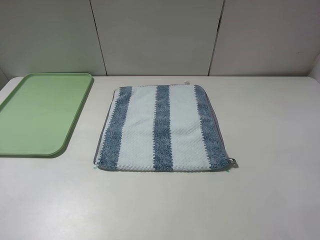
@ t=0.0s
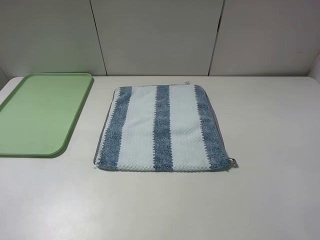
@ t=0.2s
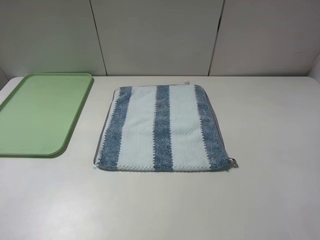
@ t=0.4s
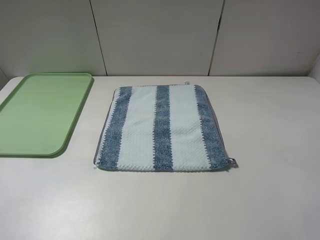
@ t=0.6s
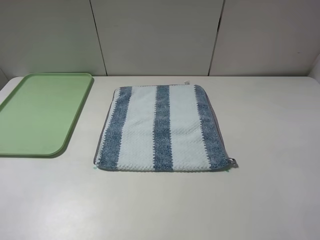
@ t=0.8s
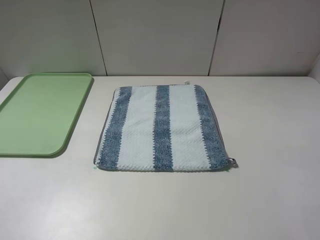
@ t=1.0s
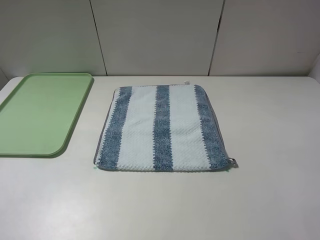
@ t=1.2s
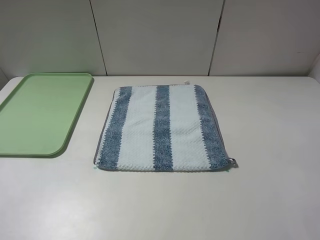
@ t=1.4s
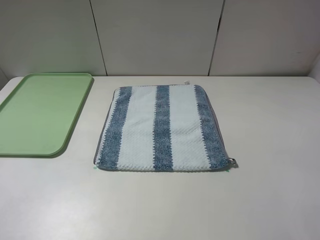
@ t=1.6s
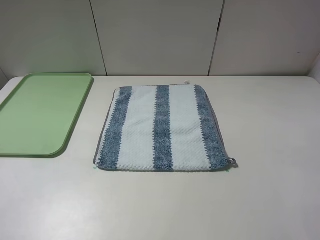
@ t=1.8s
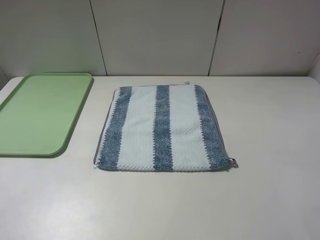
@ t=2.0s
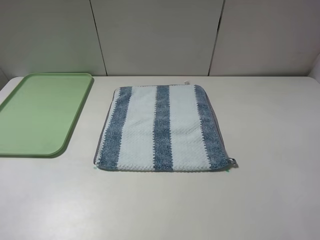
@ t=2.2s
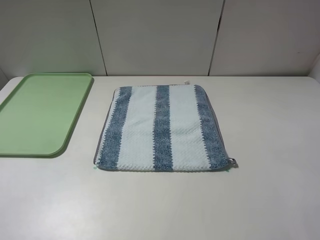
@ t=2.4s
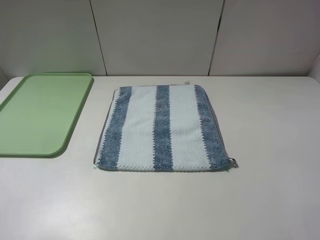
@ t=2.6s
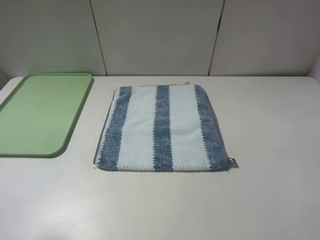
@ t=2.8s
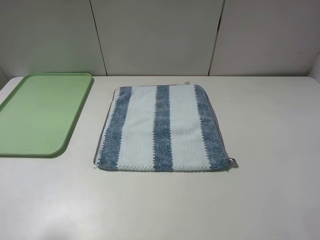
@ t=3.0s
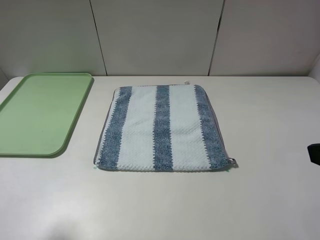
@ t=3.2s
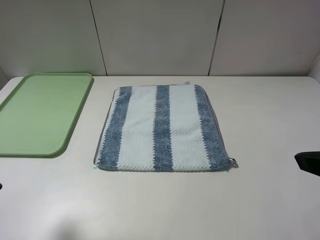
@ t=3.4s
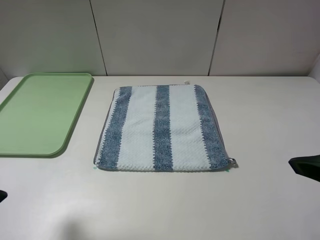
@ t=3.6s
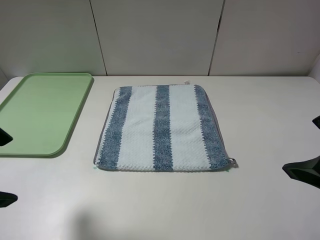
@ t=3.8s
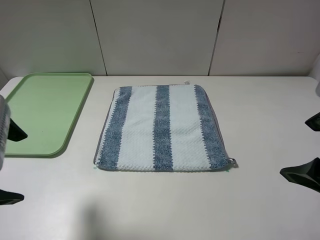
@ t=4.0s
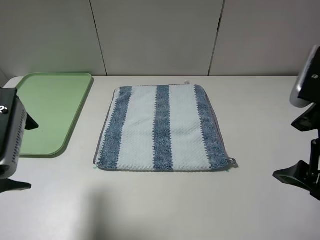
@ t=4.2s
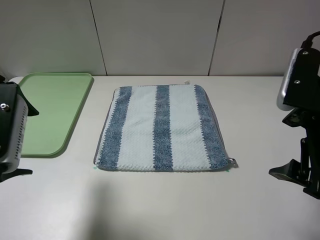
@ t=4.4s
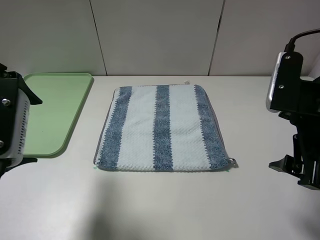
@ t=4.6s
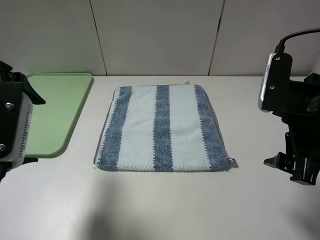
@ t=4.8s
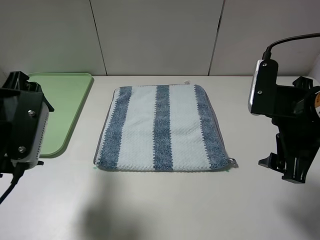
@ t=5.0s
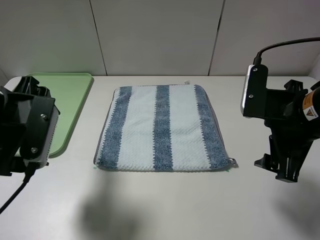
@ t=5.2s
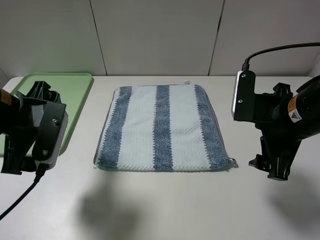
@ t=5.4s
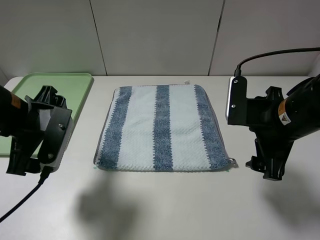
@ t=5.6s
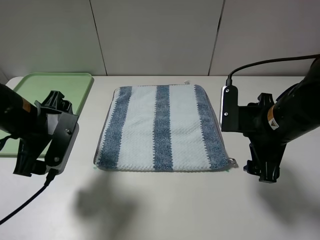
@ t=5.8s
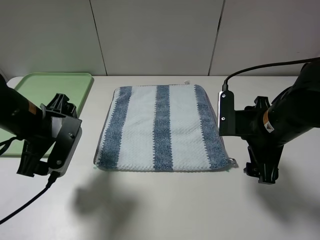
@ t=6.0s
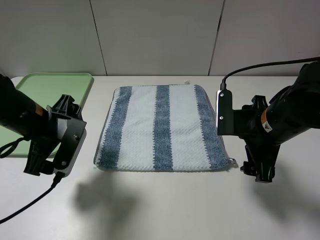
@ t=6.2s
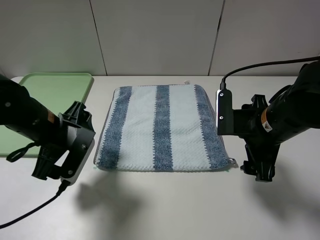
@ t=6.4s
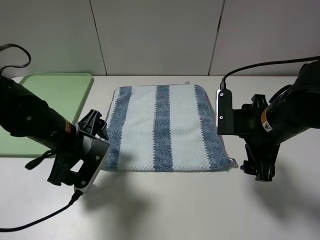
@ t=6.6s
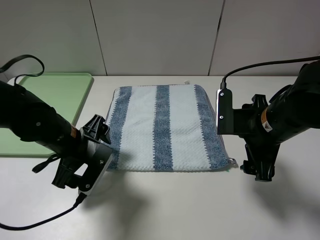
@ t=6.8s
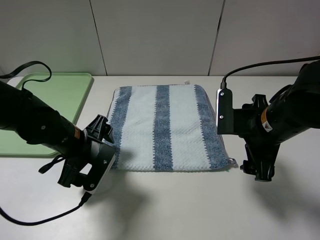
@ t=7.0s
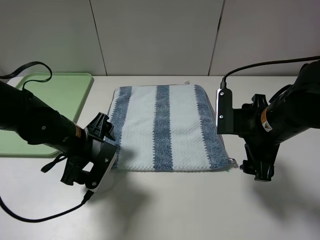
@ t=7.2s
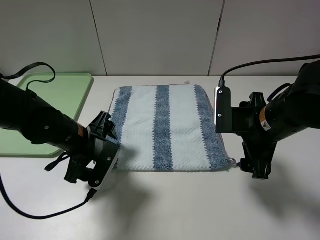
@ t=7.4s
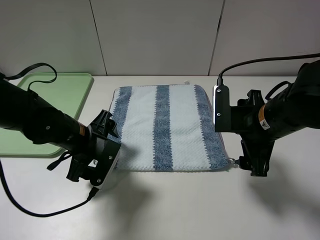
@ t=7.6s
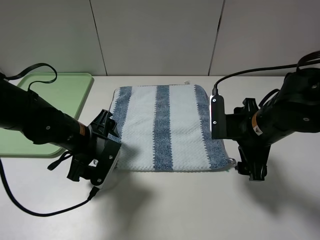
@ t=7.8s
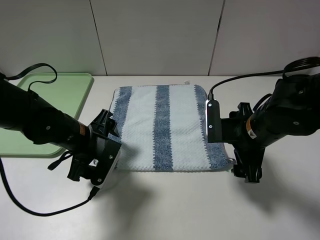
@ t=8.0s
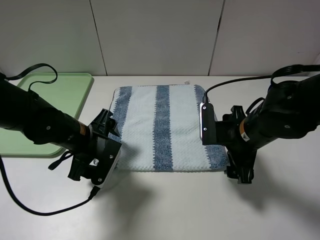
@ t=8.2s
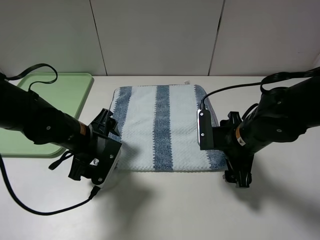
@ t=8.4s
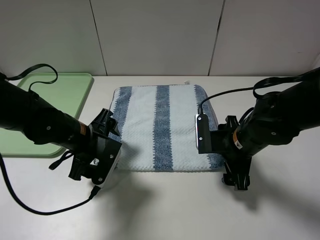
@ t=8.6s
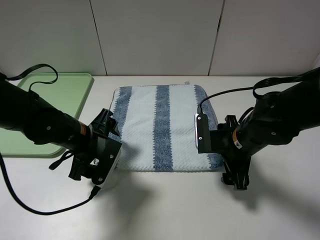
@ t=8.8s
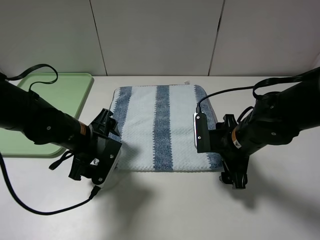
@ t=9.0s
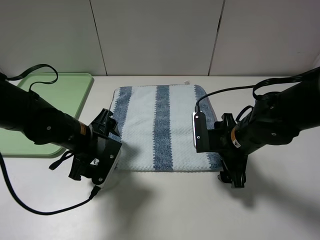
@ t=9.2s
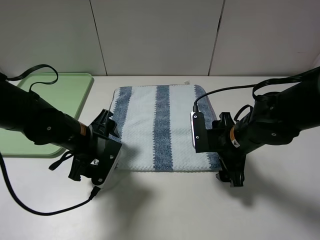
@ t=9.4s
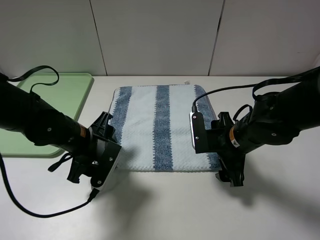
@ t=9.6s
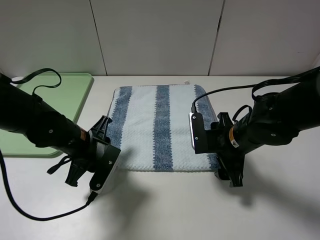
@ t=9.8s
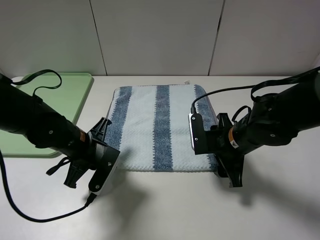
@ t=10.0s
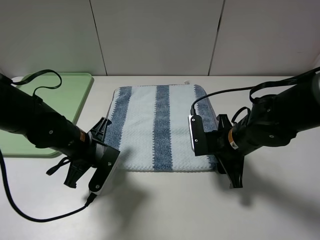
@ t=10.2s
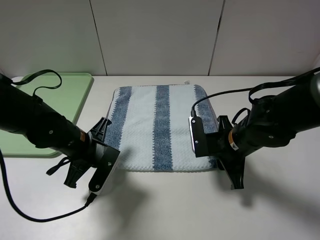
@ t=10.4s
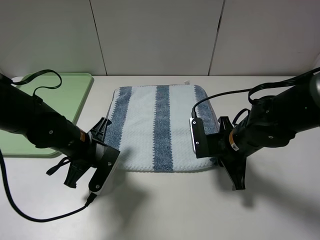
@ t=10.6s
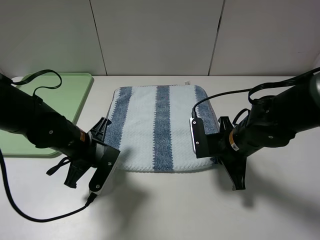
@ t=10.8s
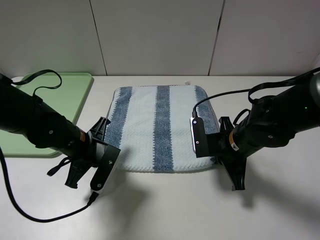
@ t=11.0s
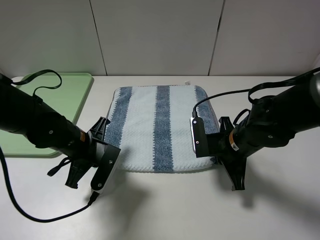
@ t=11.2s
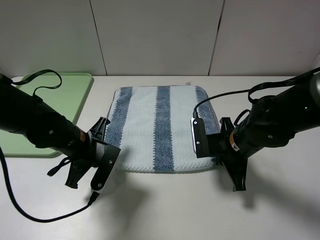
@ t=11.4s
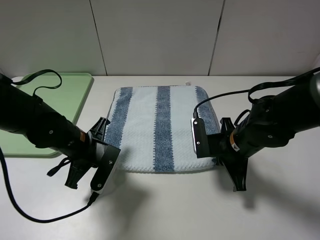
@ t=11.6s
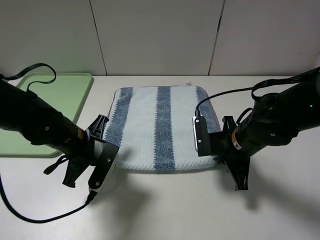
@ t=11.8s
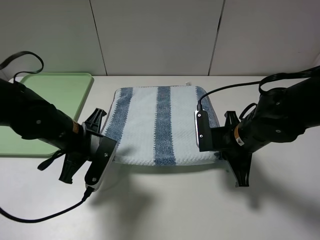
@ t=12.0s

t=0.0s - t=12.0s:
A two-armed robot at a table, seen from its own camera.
Step, t=0.0s - t=11.4s: Grasp the blue white towel with the left gripper.
t=0.0s - t=1.6s: Both grippers stay put.
t=3.0s - t=4.4s: The right gripper is displaced forward and downward by approximately 10 cm, while the left gripper goes some 10 cm forward.
t=4.4s - t=6.0s: The grippers both shift downward and forward by about 10 cm.
t=6.0s - t=7.6s: The left gripper heads downward and to the right, covering roughly 10 cm.
t=7.6s - t=9.0s: The right gripper travels downward by roughly 5 cm.
t=9.0s - t=10.4s: The right gripper closes up. The left gripper closes up.
t=10.4s - t=12.0s: The right gripper closes its fingers.

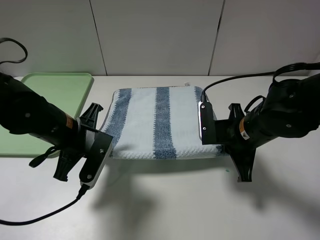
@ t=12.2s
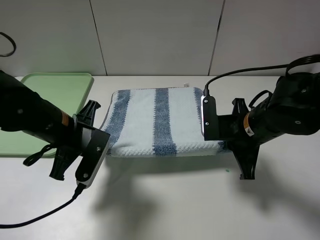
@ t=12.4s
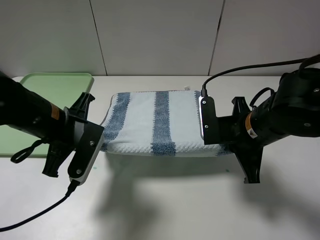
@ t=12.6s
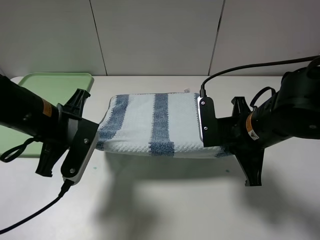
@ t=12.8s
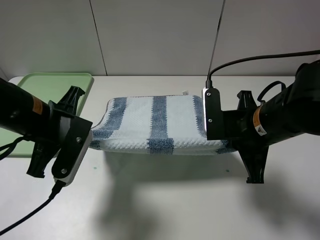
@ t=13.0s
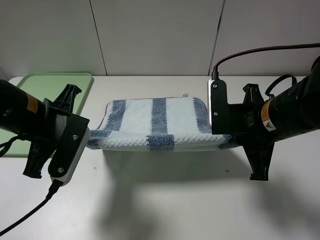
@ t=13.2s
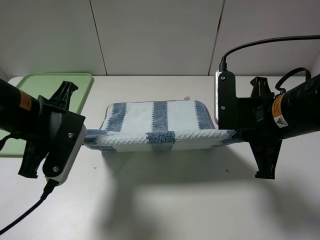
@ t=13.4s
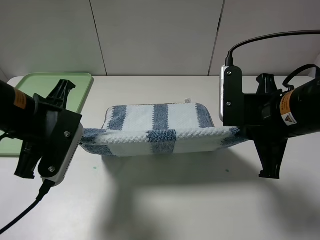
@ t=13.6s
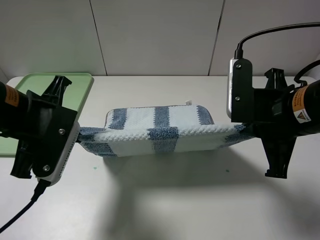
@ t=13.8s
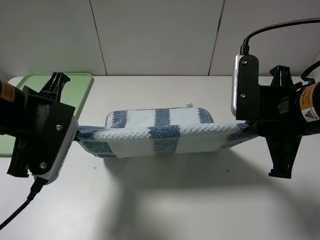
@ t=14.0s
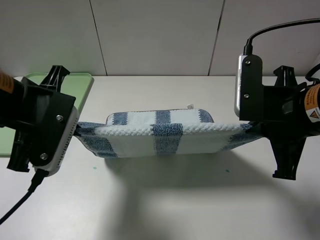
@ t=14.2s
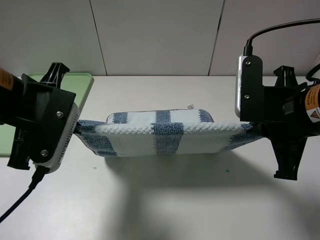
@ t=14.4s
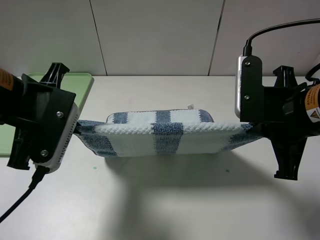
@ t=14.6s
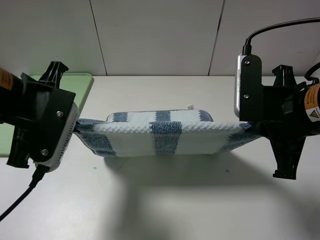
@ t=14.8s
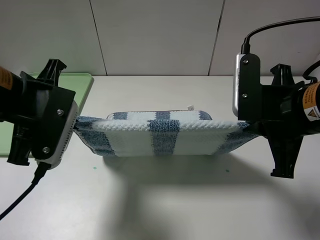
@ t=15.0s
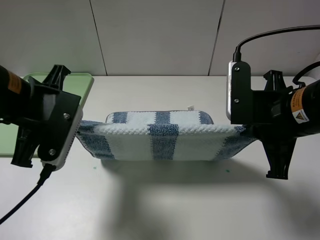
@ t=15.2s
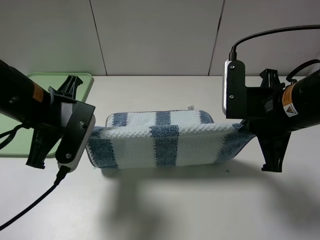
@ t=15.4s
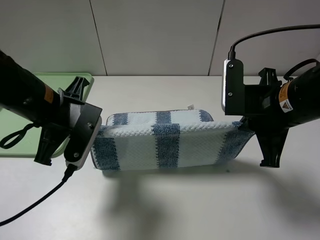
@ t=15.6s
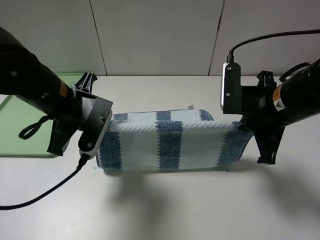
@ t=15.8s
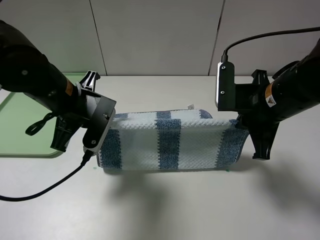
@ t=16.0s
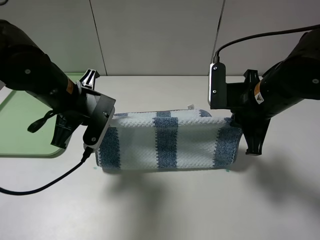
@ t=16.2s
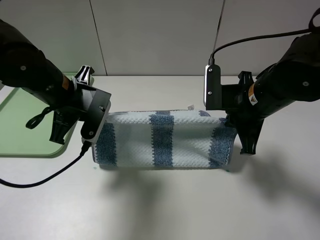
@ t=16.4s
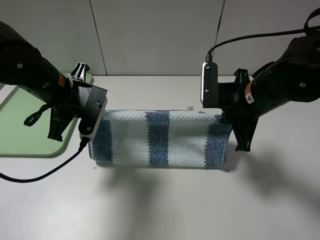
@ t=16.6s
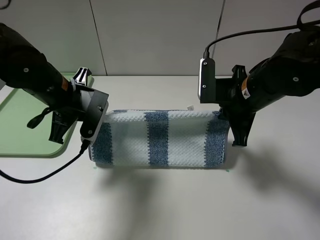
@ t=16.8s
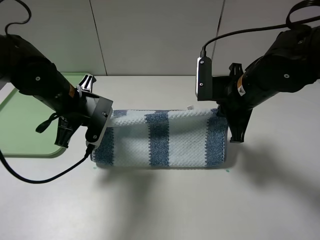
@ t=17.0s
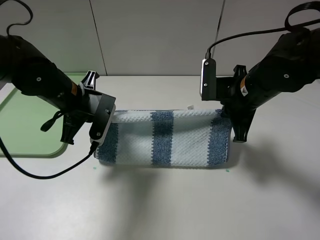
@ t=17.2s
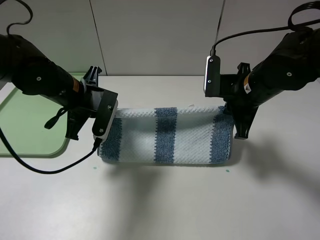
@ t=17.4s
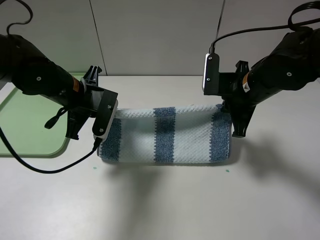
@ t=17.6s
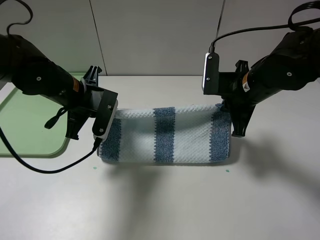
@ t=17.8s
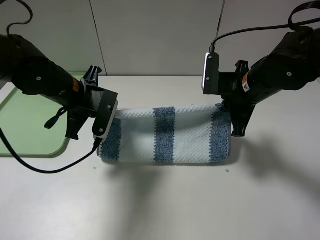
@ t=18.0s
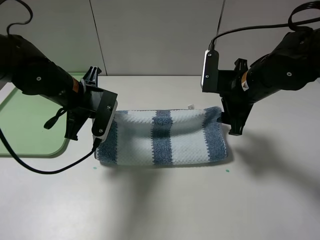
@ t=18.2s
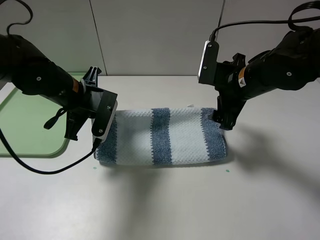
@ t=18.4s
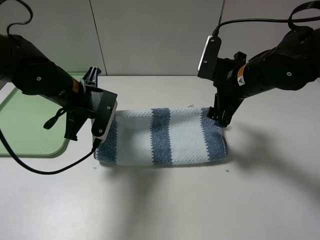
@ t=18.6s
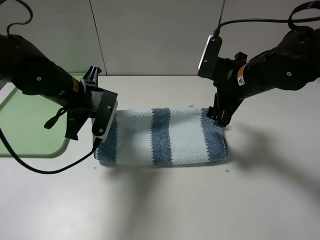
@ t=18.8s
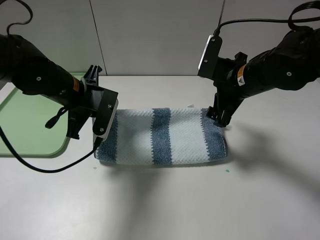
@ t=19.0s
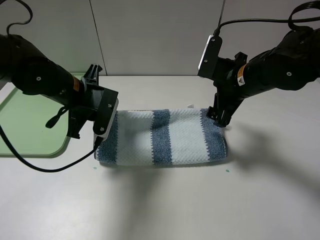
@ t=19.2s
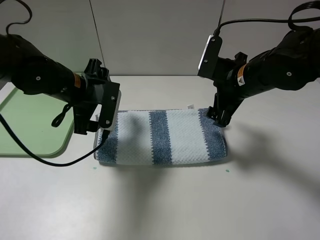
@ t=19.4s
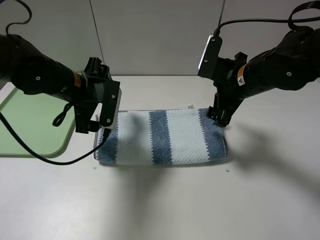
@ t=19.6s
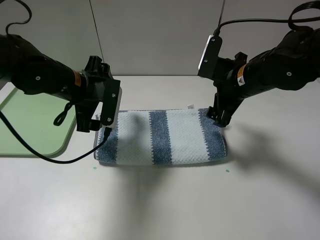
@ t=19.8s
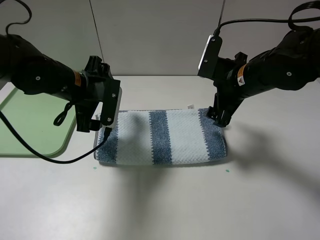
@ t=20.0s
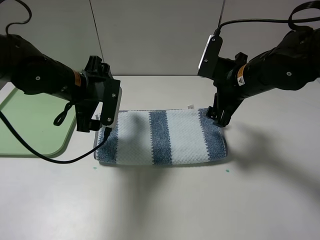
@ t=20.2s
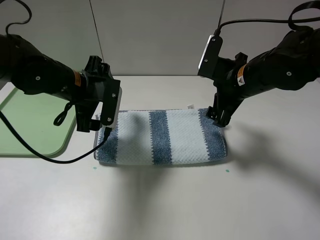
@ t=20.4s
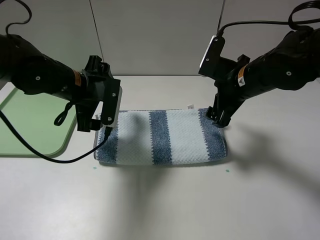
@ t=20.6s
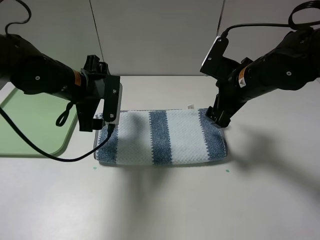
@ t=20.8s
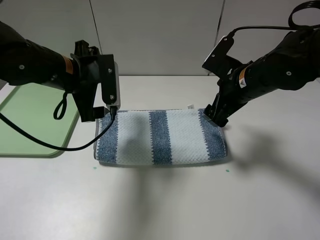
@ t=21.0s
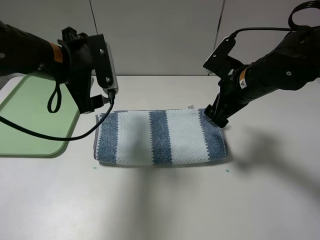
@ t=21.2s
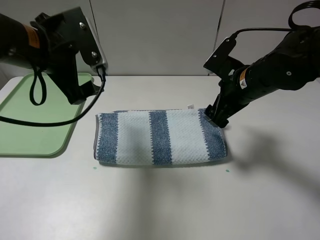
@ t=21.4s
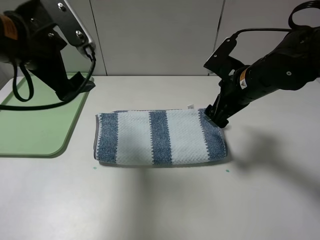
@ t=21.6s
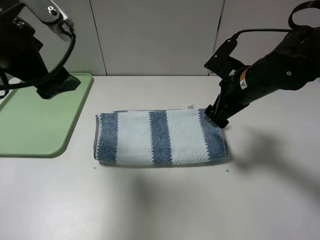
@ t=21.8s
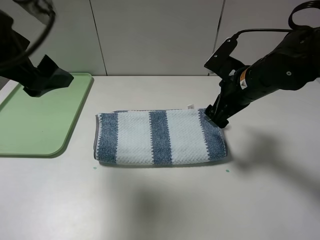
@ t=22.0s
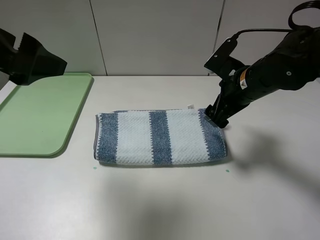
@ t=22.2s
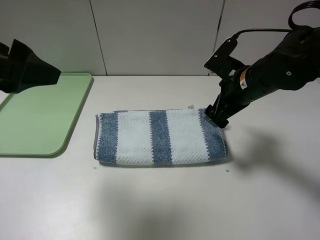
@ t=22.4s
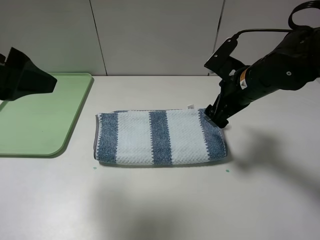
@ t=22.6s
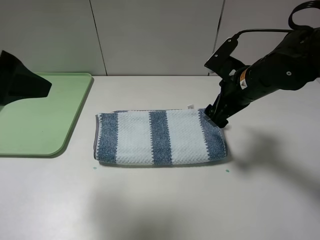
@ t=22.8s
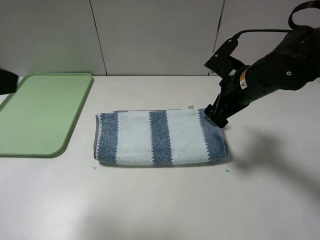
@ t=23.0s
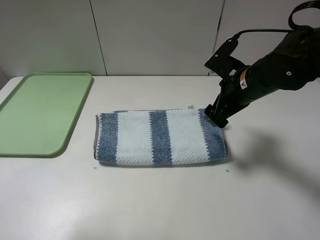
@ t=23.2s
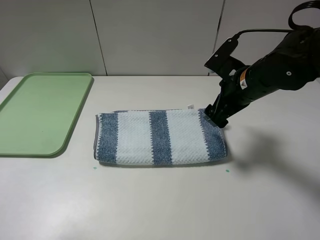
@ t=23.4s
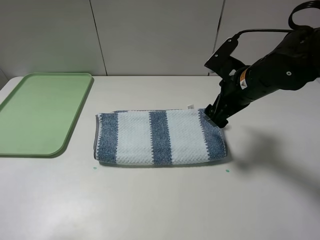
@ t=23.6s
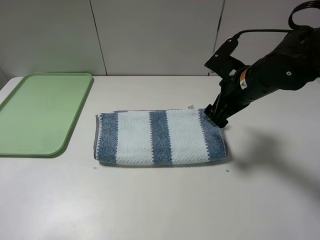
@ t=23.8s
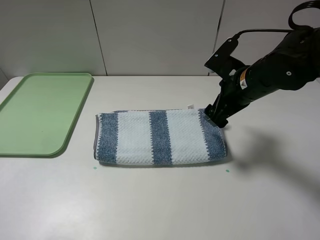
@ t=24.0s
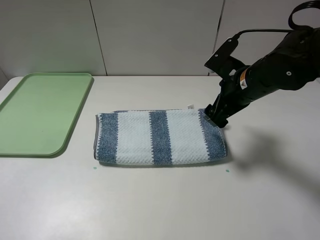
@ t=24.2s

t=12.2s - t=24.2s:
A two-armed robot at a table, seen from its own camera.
Step, t=12.2s - t=19.4s: Fold the blue white towel upwards with the left gripper.
t=12.2s - t=13.8s: The right gripper shifts roughly 10 cm upward and backward. The left gripper goes about 10 cm upward.
t=13.8s - t=15.2s: The grippers stay close to where they were, moving slightly.
t=15.2s - t=16.6s: Both grippers move forward, roughly 10 cm.
t=16.6s - t=18.2s: The right gripper opens.
t=18.2s - t=19.8s: The left gripper opens its fingers.
t=19.8s - t=21.2s: The left gripper shifts some 5 cm upward.
t=21.2s - t=22.6s: The left gripper shifts about 15 cm backward, upward and to the left.
t=22.6s - t=24.2s: The left gripper is displaced backward and to the left by some 15 cm.
